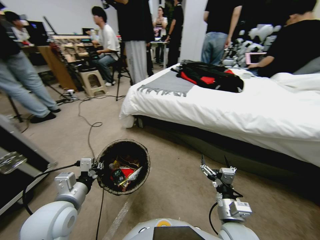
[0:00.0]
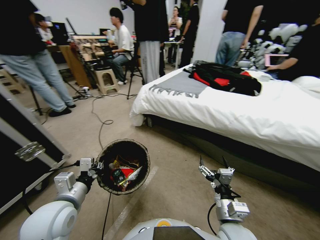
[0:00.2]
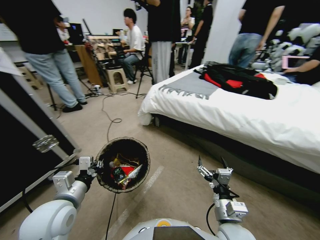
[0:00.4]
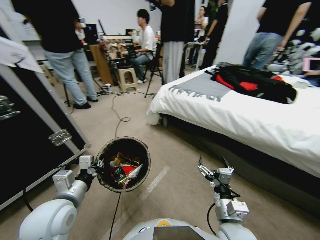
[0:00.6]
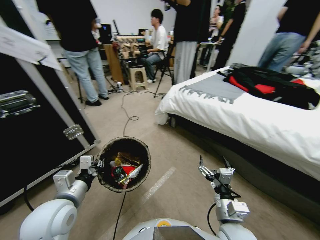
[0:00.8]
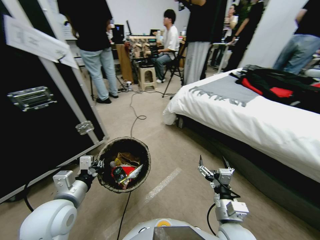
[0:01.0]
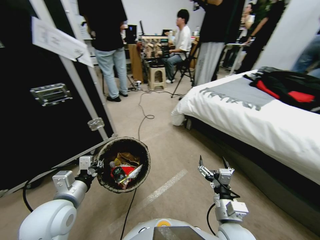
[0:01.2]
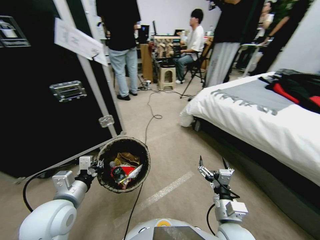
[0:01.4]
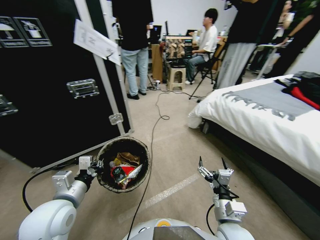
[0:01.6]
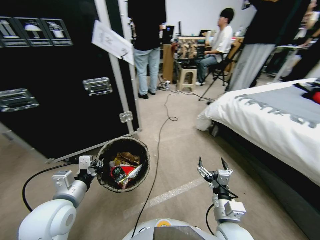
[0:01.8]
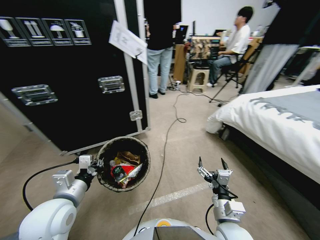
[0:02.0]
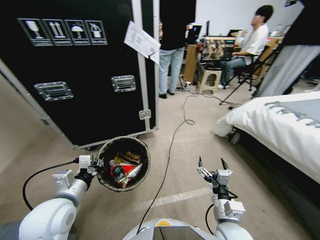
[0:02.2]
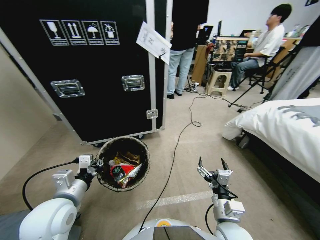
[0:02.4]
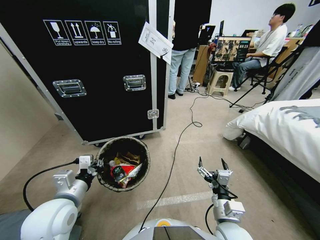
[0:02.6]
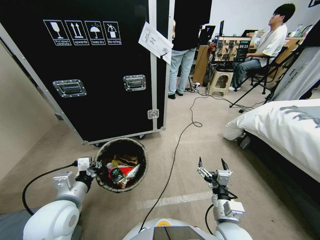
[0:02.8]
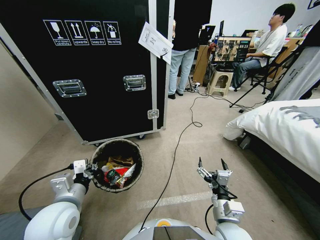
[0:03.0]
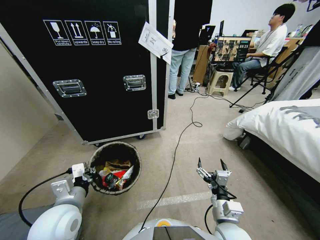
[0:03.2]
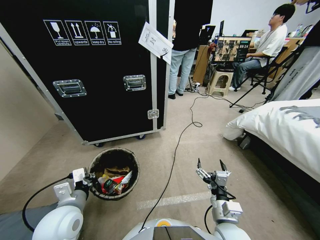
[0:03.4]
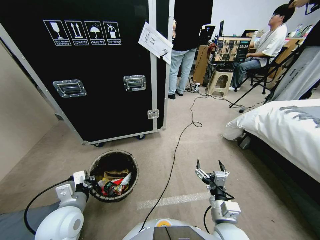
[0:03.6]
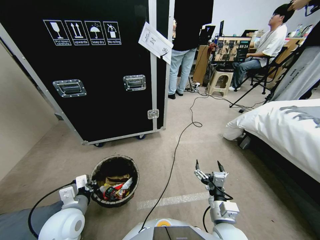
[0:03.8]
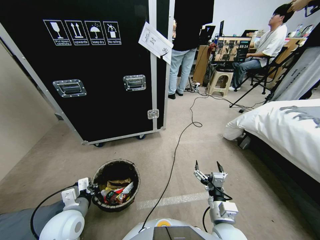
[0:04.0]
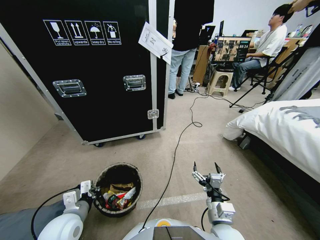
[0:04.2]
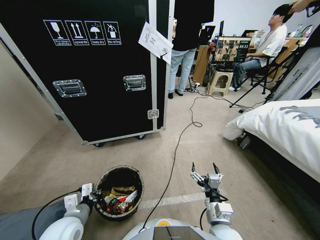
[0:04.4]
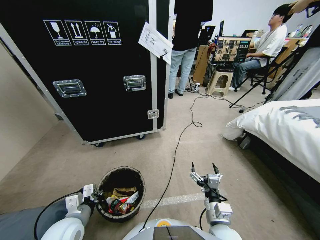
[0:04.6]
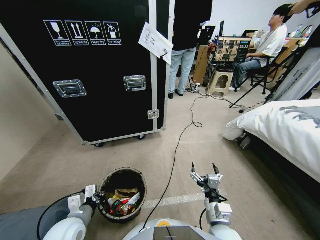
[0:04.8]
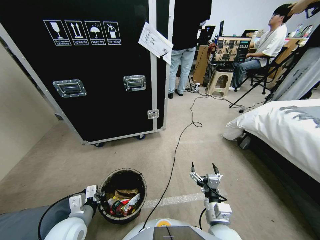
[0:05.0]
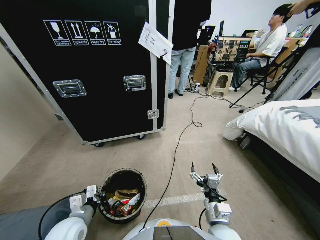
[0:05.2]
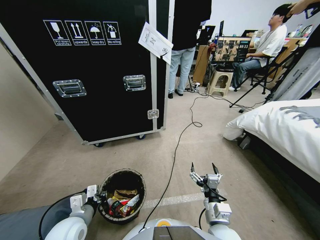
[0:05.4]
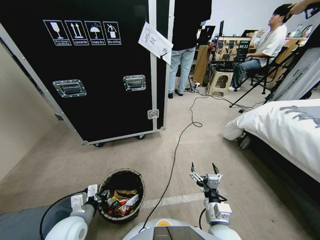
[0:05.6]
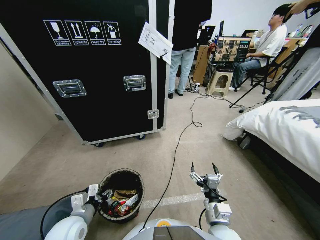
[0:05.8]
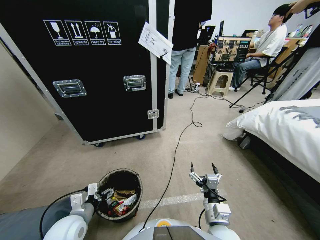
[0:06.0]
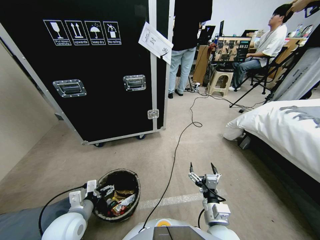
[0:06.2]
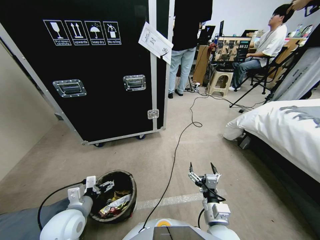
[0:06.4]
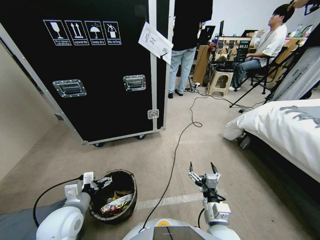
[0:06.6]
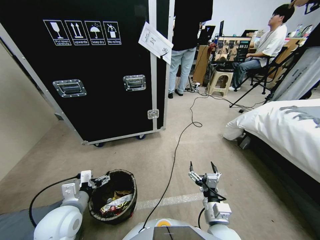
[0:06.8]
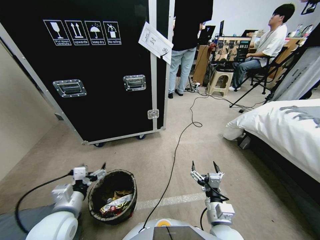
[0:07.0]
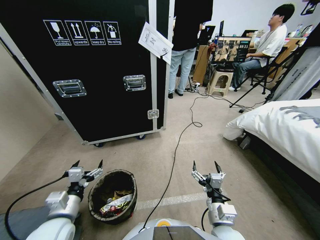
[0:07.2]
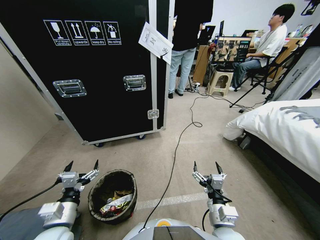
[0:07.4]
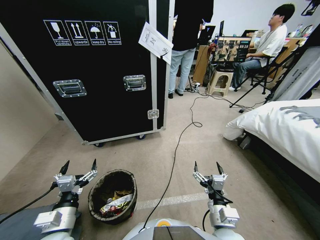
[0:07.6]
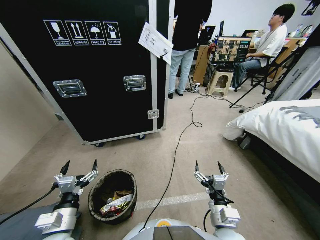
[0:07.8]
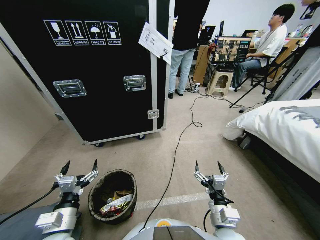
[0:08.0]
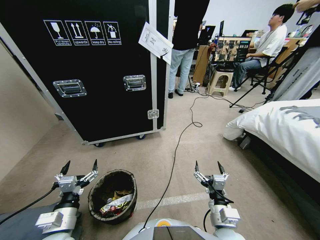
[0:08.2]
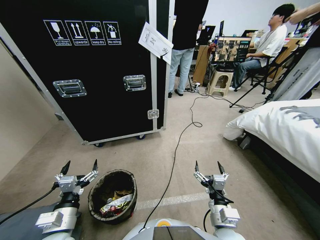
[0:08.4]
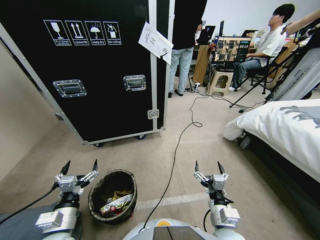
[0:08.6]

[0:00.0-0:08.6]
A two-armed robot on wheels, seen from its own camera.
Task of the whole recording: Pick up the trash bin, then pick up the garbage from the floor and place it into the trash bin.
0:02.8 to 0:04.4: The left gripper travels downward by approximately 10 cm.
0:04.4 to 0:05.8: The left gripper opens.
0:07.2 to 0:08.6: The grippers move only a little.
